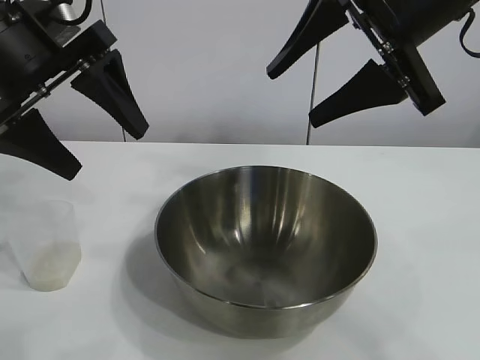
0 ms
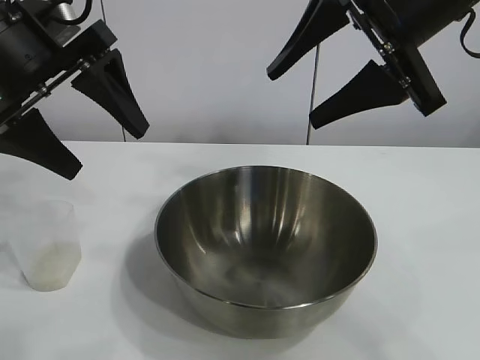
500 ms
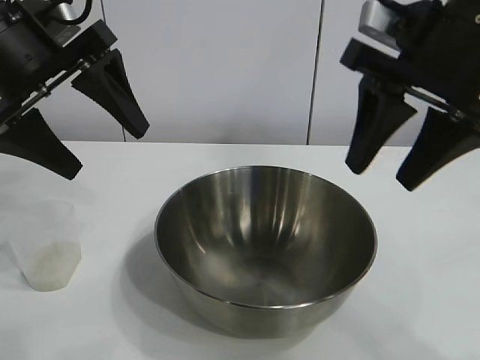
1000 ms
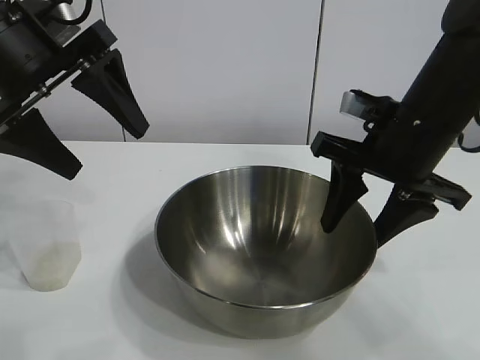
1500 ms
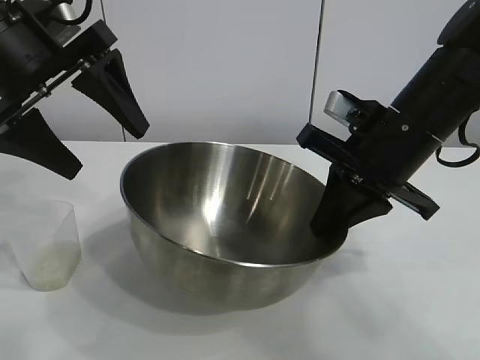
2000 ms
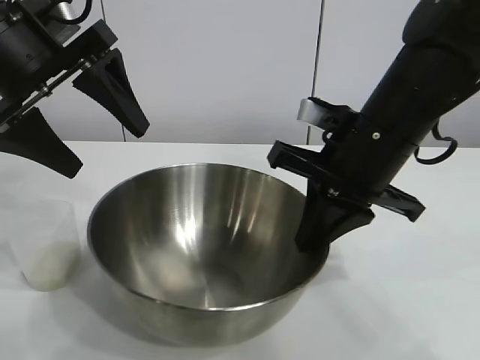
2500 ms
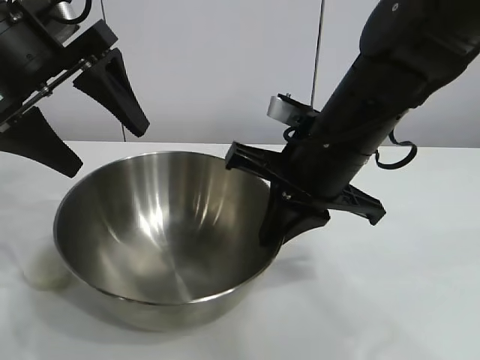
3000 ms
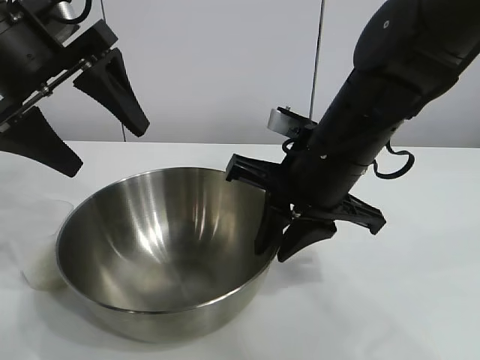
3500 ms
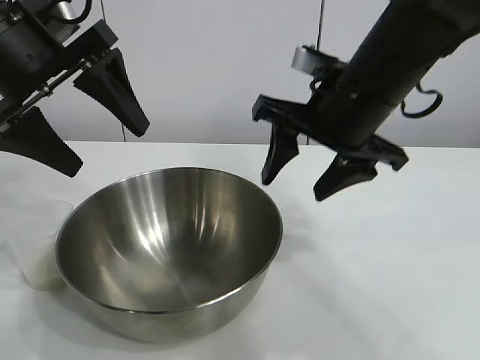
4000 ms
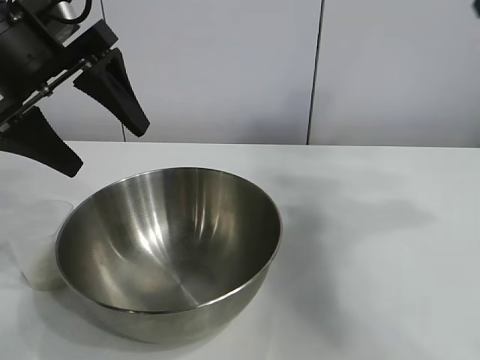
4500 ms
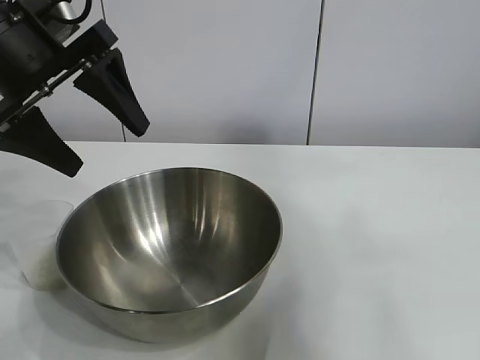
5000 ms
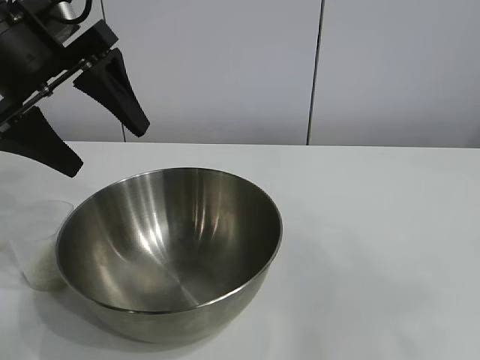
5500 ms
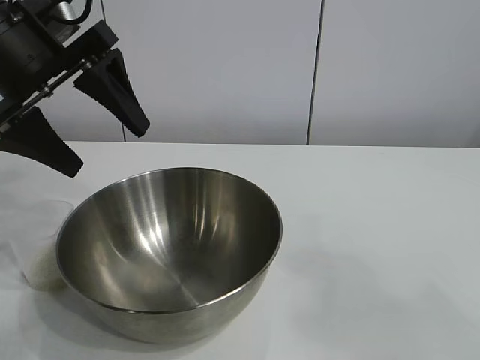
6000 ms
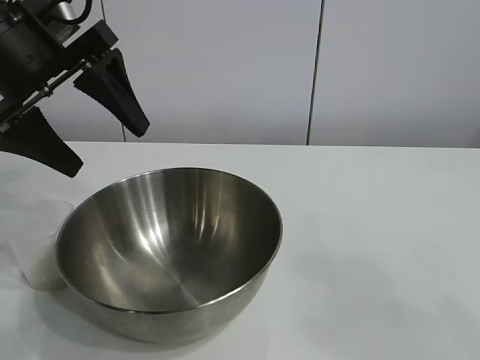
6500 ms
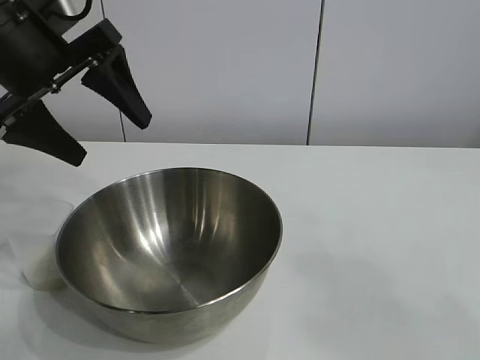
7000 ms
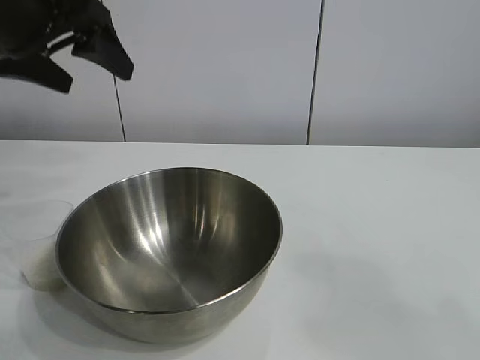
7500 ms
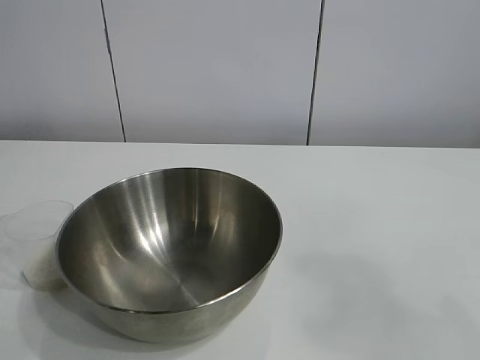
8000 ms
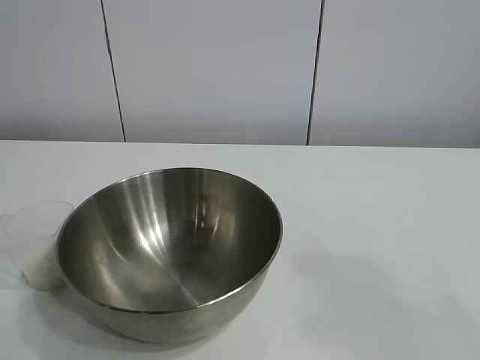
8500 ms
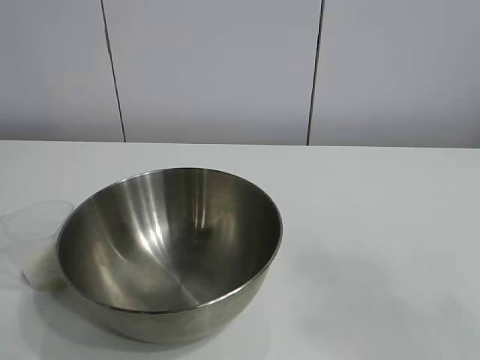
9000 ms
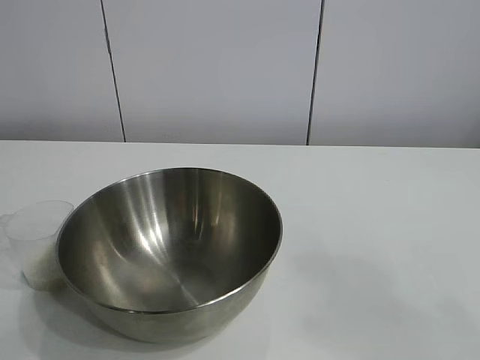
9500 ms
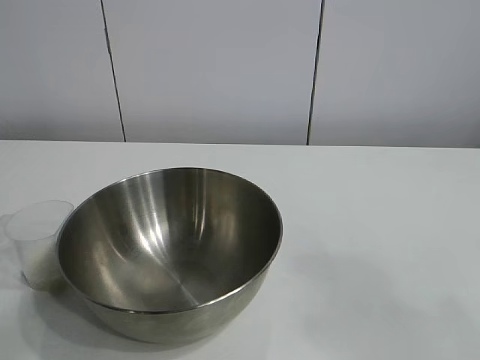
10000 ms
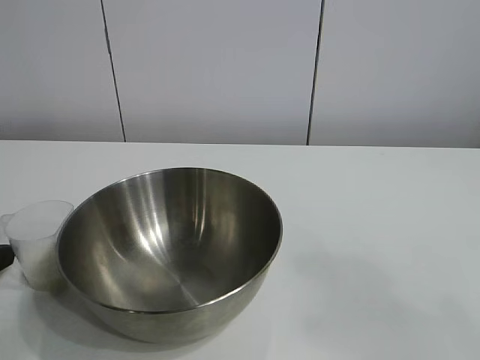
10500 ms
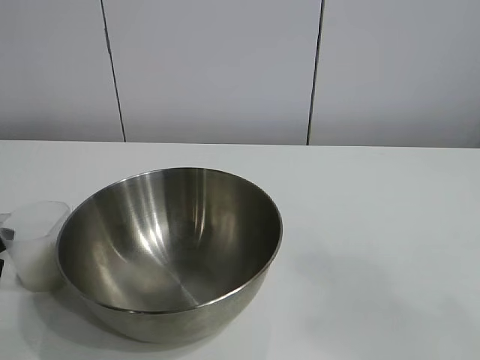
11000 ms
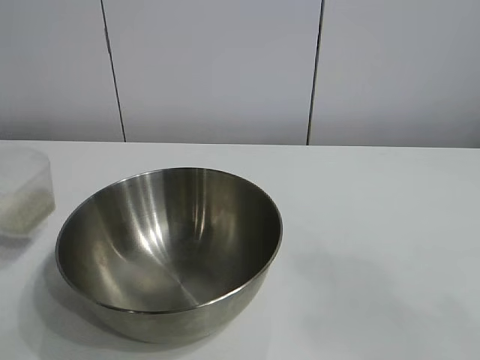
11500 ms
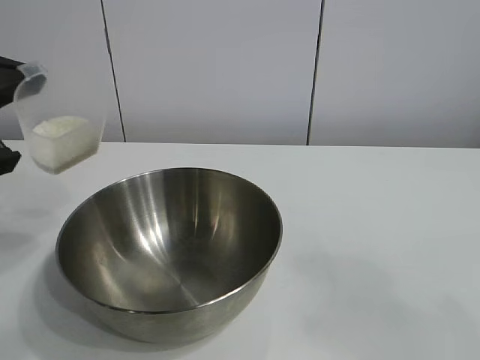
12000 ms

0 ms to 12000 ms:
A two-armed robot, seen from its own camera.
Task of the whole recording: the right gripper grasp the rice container and place it in the center of the table, the left gripper grasp the rice scoop and pour the rice into the rice container.
Step, 1000 ms to 3500 ms: Move the bowl in the center of view with right gripper.
Step, 4000 ms to 11000 ms: Grasp the cup with rice in it with left gripper.

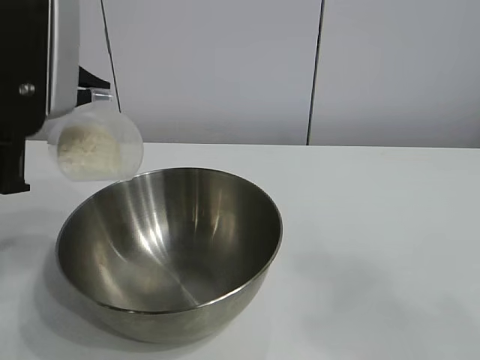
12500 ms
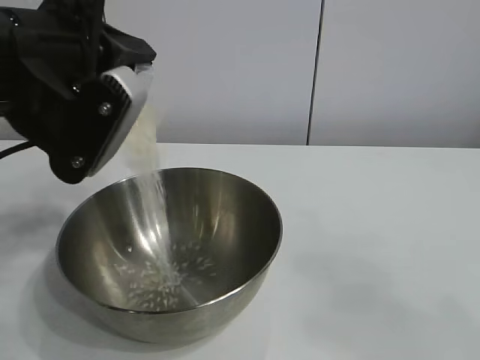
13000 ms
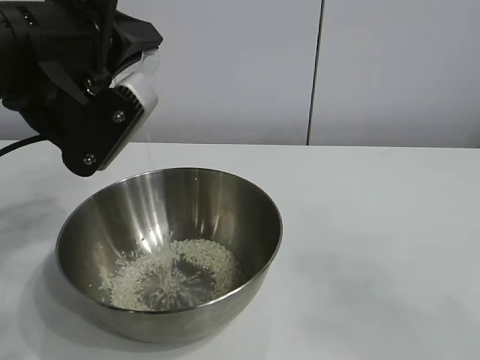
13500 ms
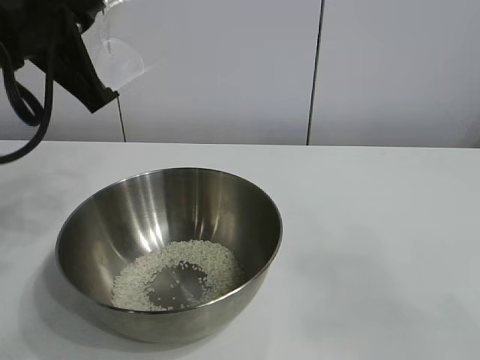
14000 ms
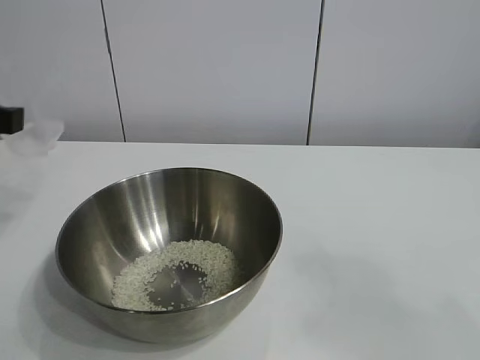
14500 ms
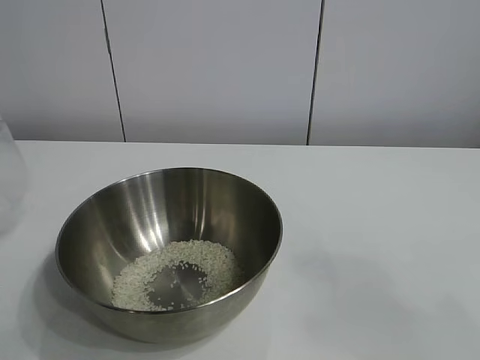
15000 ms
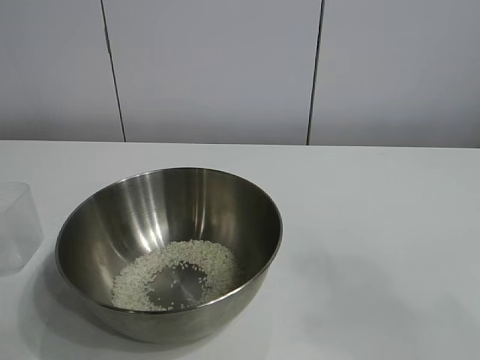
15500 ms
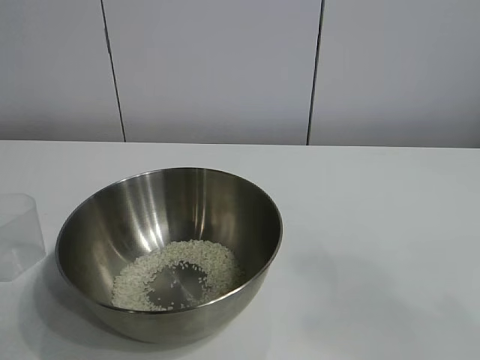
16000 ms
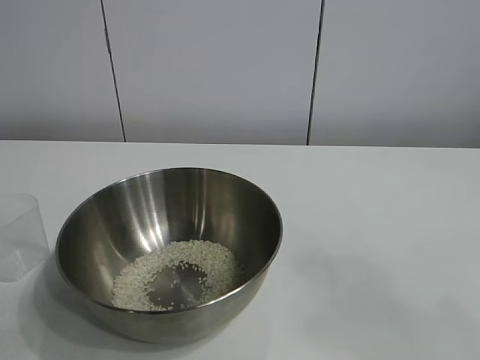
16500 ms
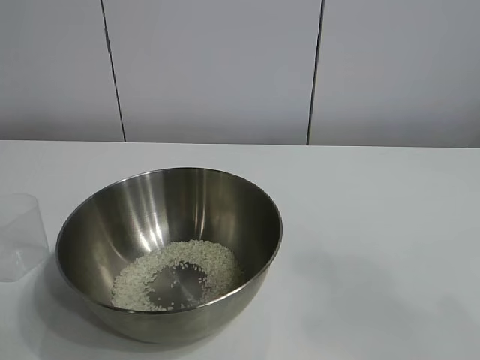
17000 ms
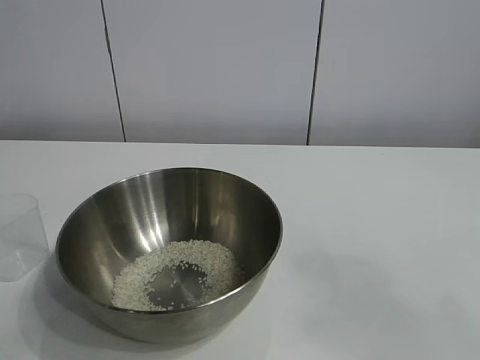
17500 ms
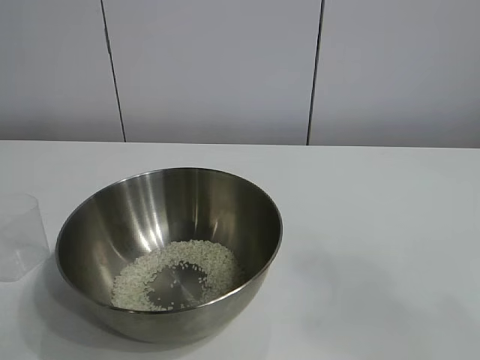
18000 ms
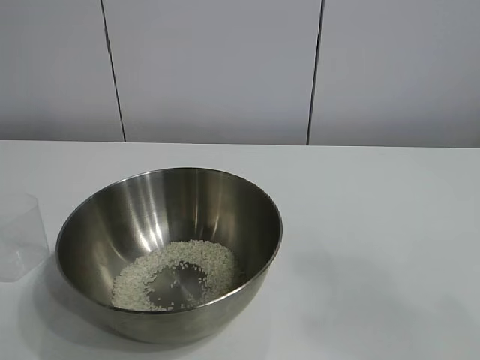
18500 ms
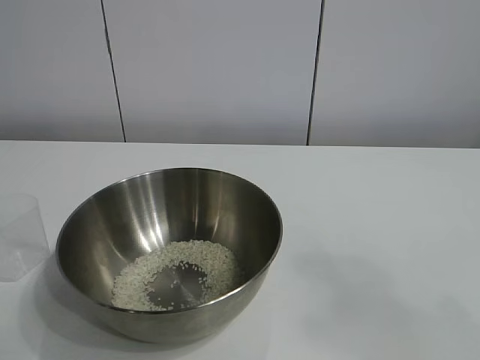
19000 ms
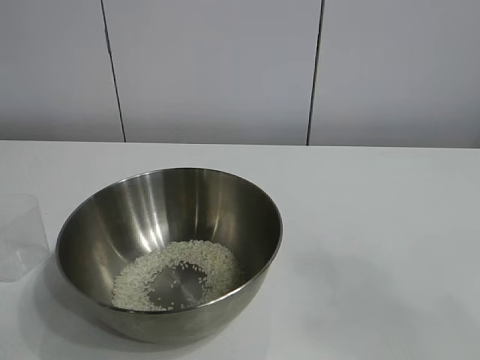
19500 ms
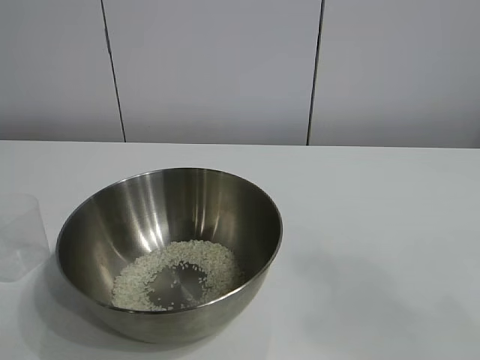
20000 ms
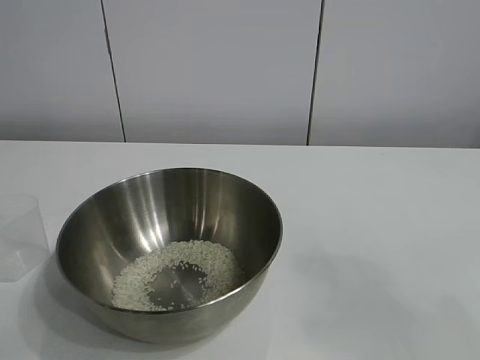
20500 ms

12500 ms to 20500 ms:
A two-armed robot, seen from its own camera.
Task of the whole recording: the right gripper grasp the rice container and place it in the center of the table, the left gripper grasp the rice scoop and pour the rice into the rice container.
Step, 14000 ms to 15500 ms: Place the cup on the table with the left gripper.
